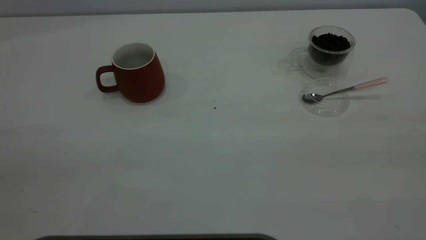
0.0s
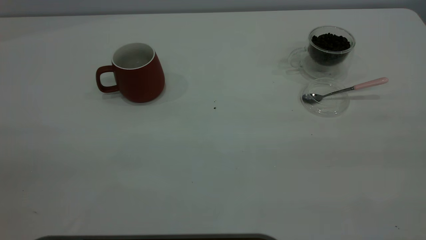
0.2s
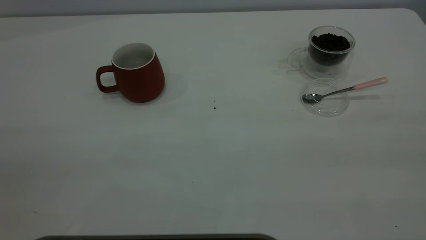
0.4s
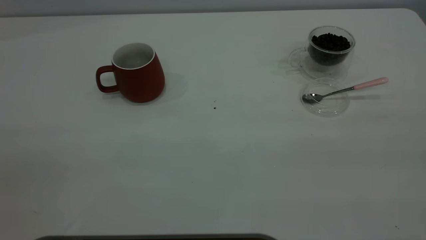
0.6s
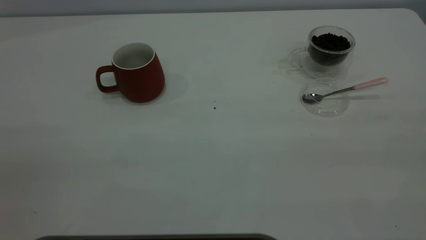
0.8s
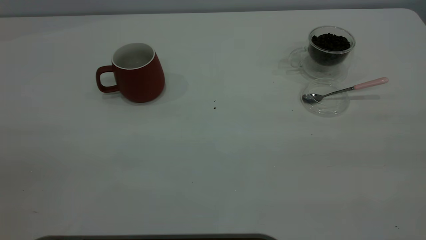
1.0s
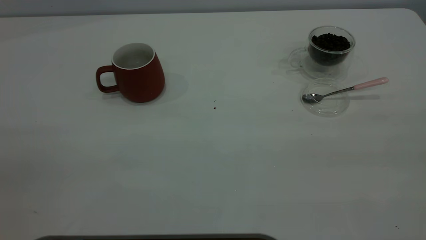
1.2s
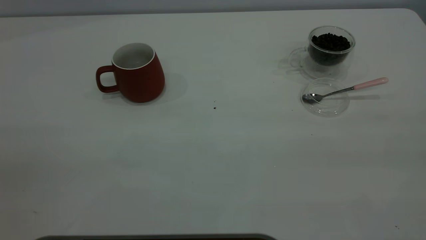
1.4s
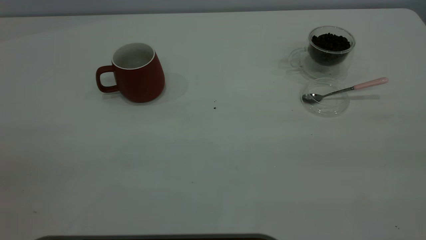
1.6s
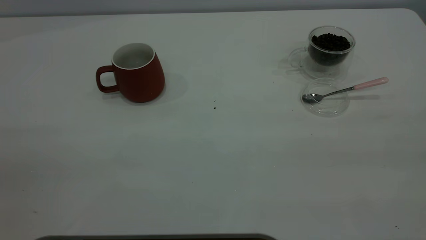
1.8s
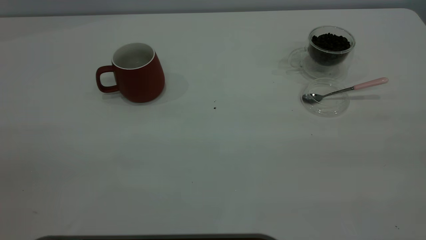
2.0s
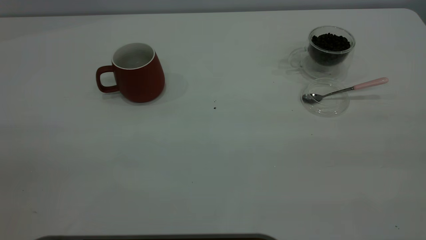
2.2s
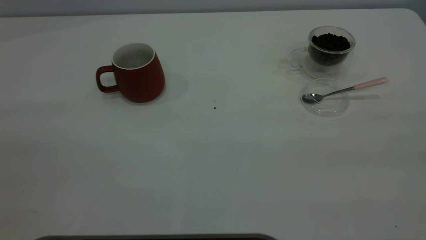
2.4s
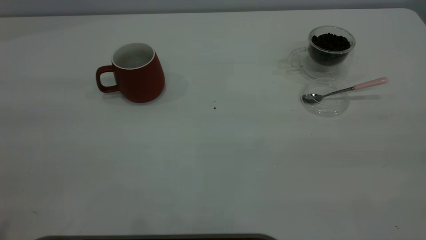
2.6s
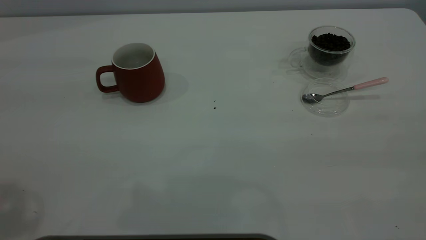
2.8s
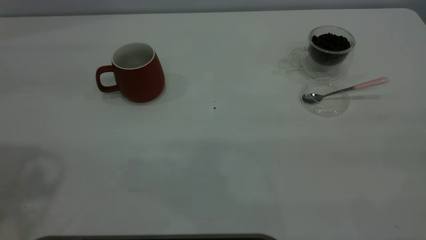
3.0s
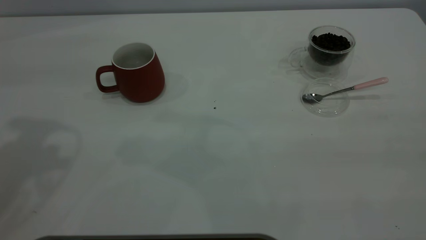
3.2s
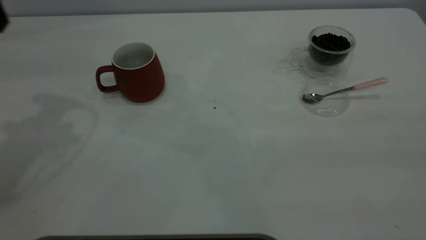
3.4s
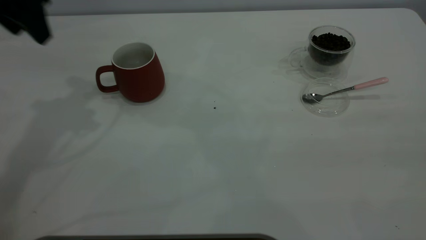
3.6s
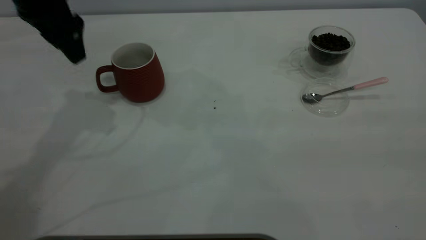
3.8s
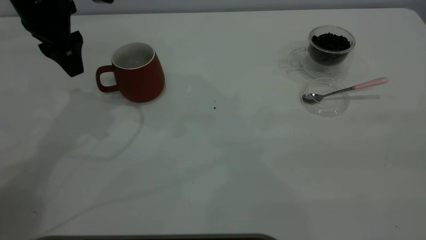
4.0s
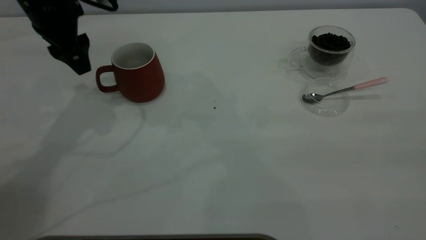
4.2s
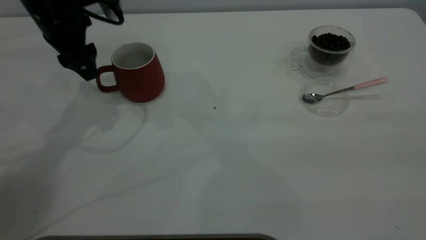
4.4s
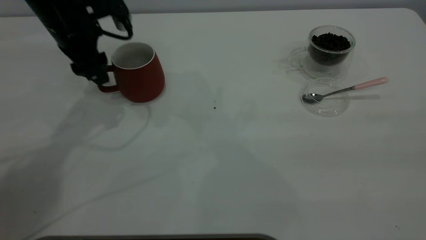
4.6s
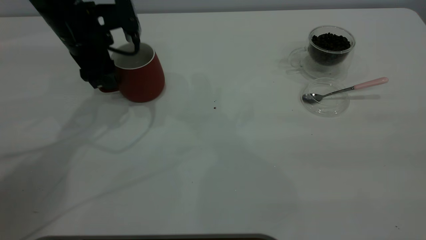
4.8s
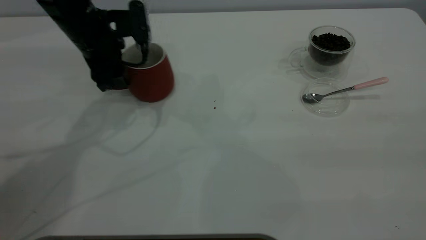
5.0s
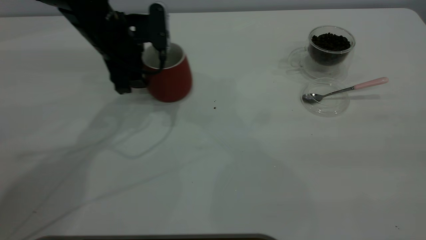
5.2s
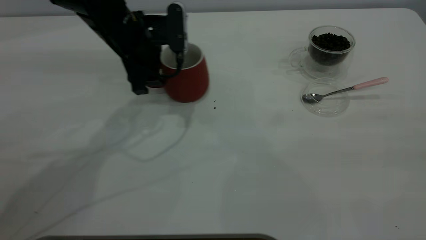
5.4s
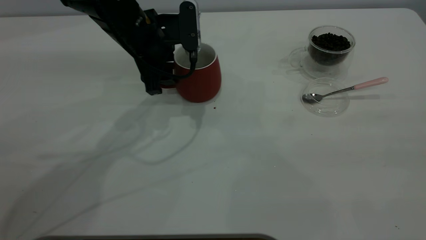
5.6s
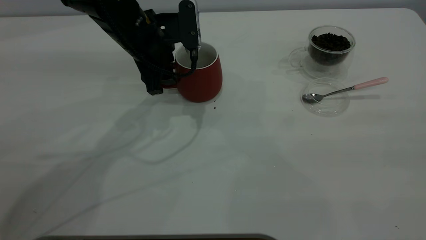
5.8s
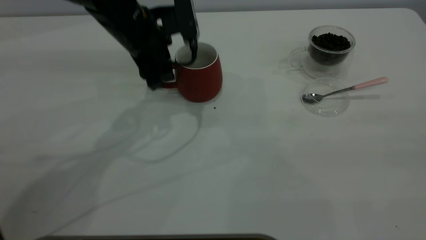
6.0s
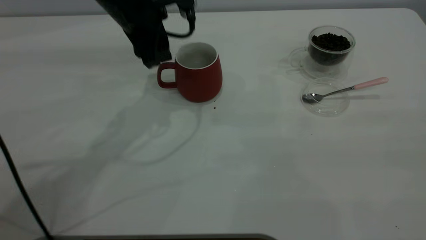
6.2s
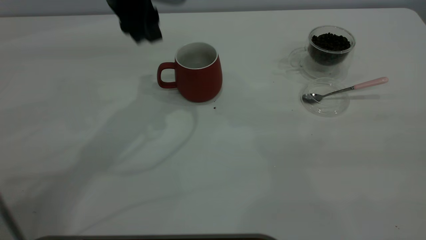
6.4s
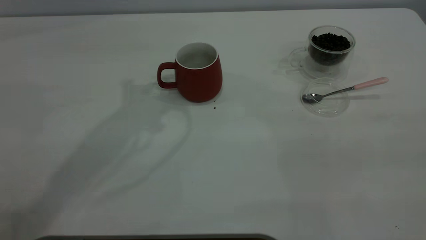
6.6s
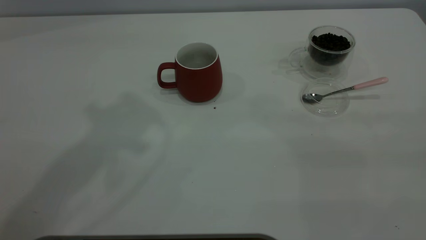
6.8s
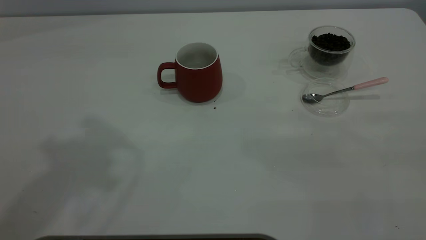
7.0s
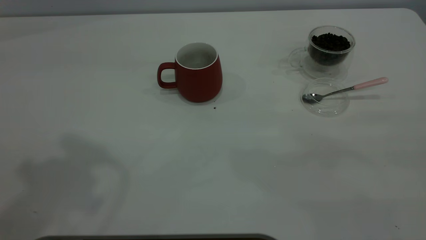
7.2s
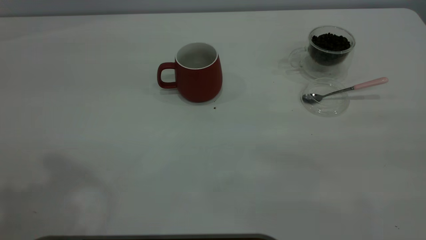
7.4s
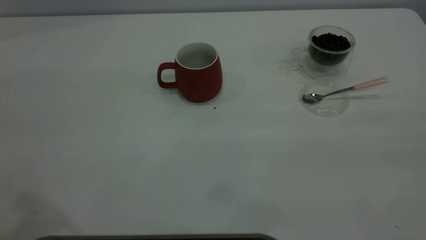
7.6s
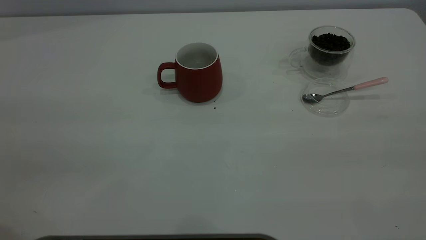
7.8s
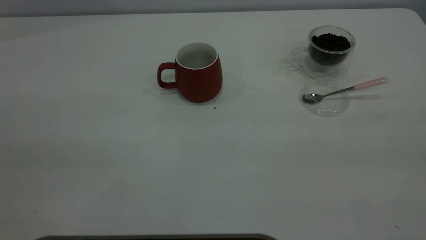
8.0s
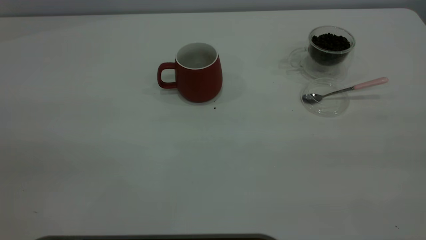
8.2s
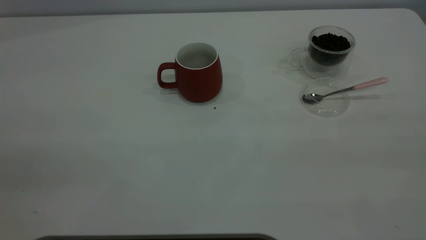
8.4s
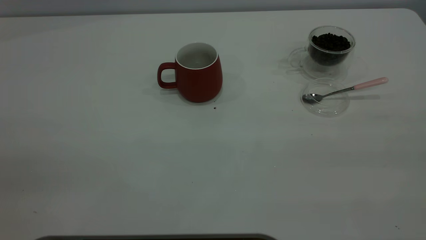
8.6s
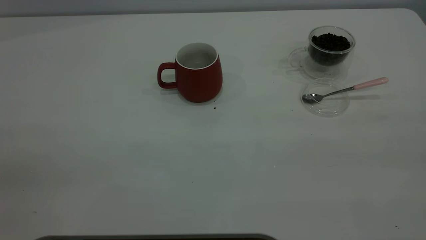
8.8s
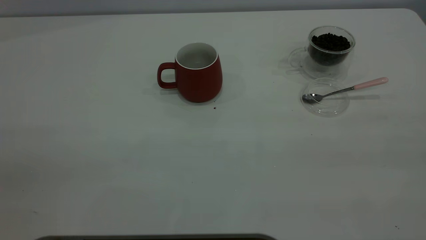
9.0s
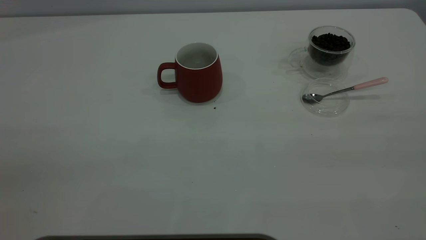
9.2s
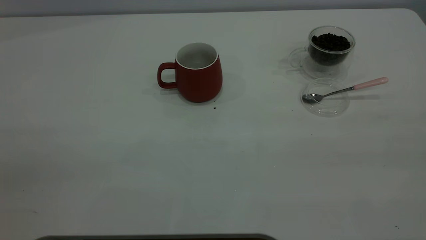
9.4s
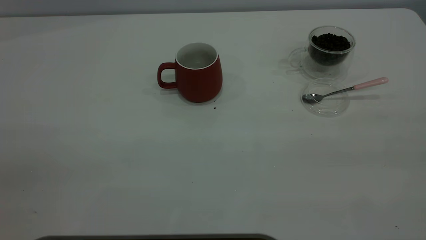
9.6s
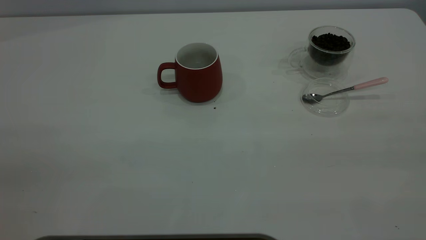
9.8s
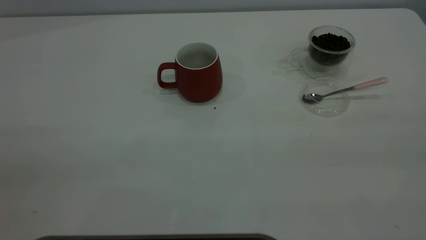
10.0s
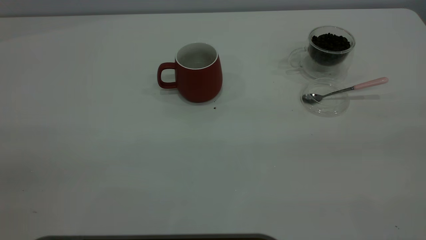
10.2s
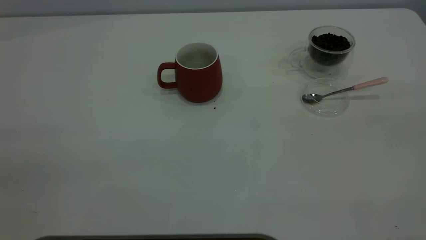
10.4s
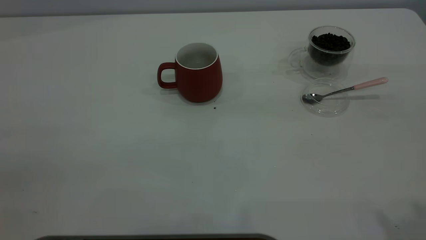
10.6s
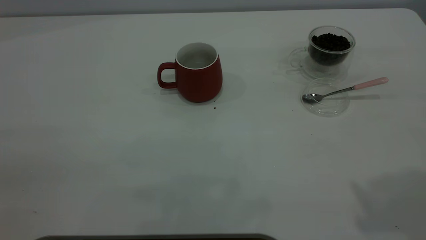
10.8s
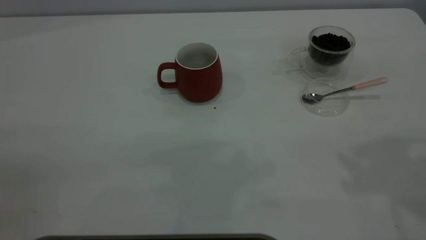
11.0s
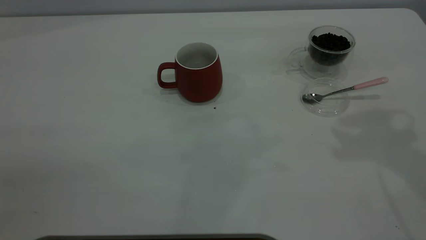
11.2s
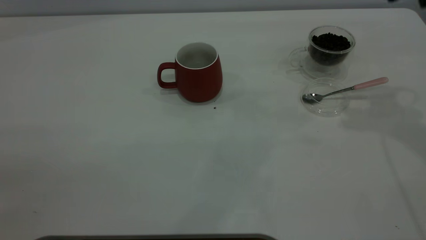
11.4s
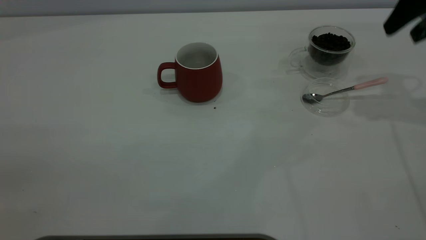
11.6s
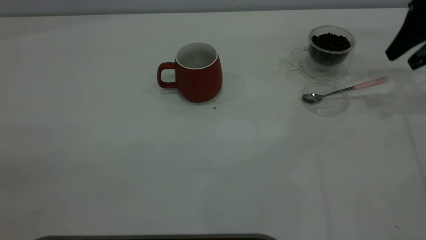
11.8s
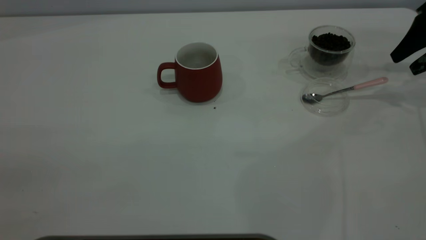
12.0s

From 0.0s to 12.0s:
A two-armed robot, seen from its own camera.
Task of the whole recording: the left gripper place the red cup in the center of the table, the right gripper take the pink spoon from the cup lid and scoop out the coffee beans from the coffee cup and put them into the red cup, the right gripper put the spoon back into the cup lid.
Step, from 0.0s to 6.2s: Move the cup to the center of view.
From 0.0s to 1.6s: Both grippers stay put.
From 3.0s to 4.4s: The left gripper shifts some 25 cm downward and forward.
From 4.4s to 6.0s: The left gripper is displaced to the right by roughly 10 cm.
From 6.0s to 7.6s: The left gripper moves backward, upward and to the left, roughly 35 cm.
From 10.4s to 12.0s: The right gripper is displaced forward and downward by roughly 40 cm.

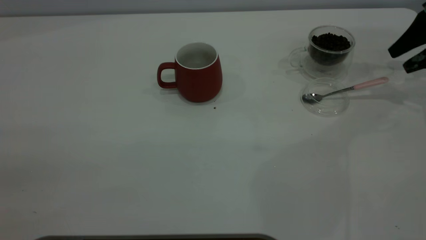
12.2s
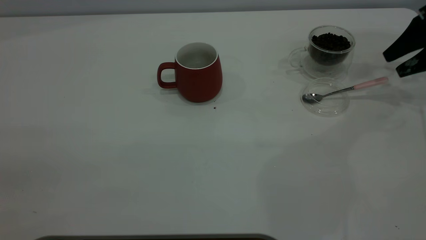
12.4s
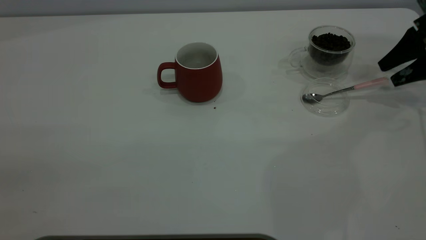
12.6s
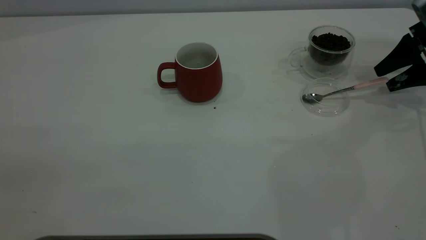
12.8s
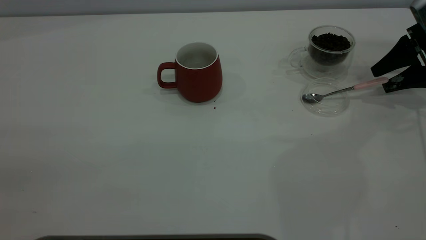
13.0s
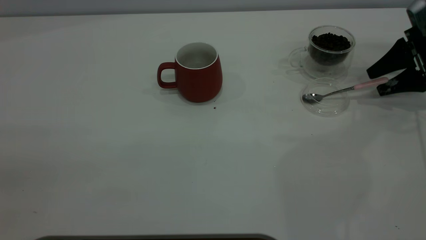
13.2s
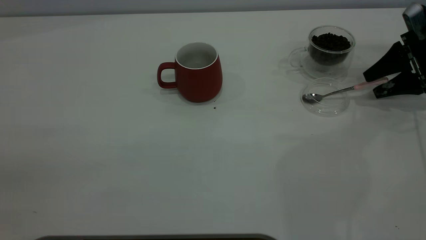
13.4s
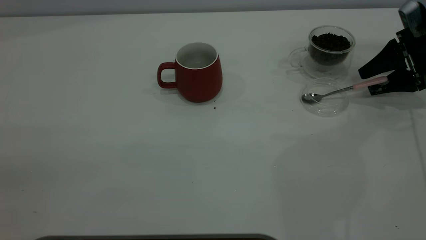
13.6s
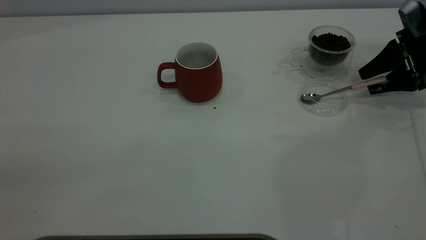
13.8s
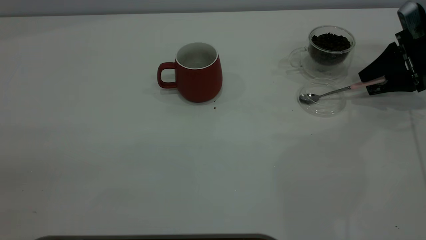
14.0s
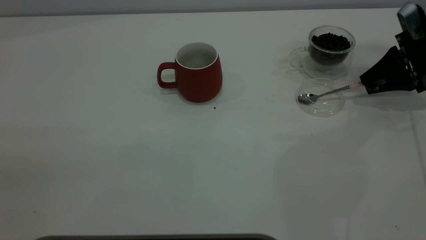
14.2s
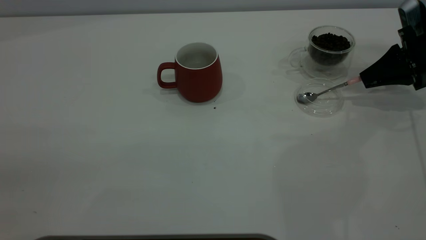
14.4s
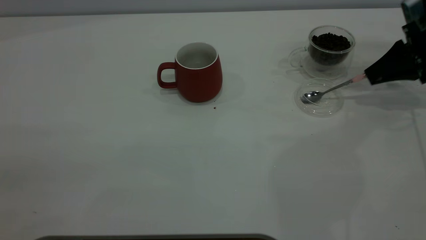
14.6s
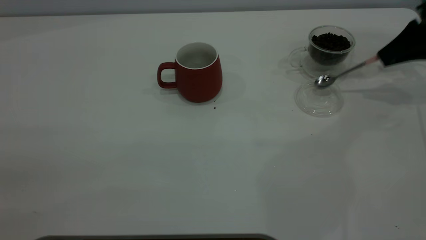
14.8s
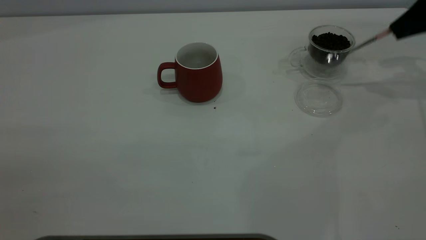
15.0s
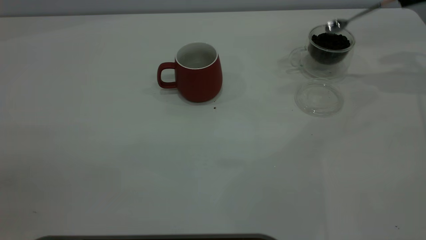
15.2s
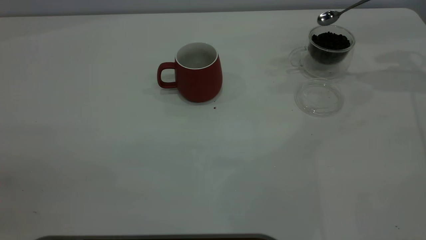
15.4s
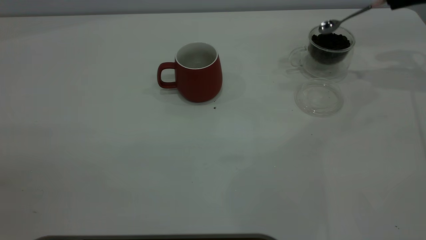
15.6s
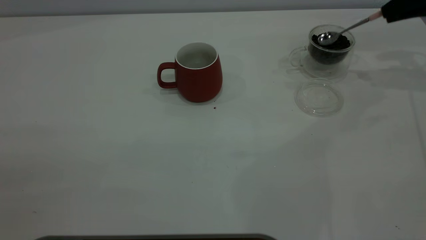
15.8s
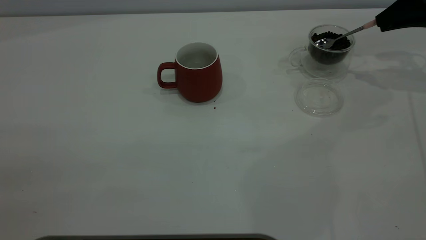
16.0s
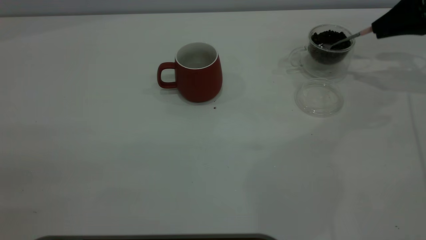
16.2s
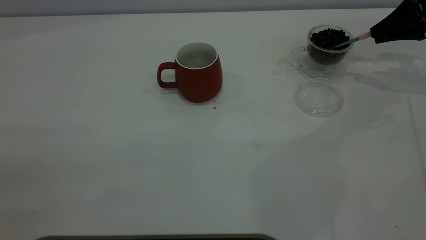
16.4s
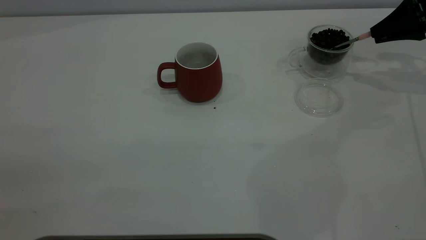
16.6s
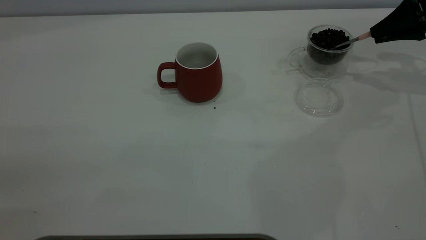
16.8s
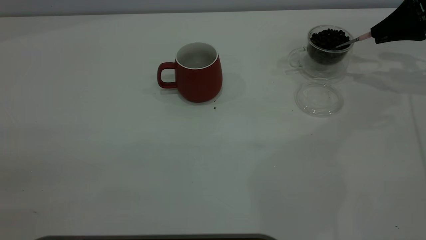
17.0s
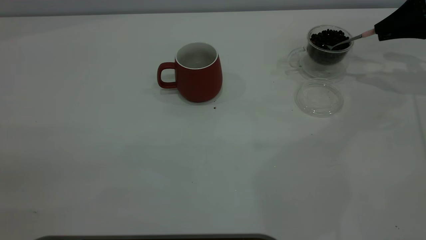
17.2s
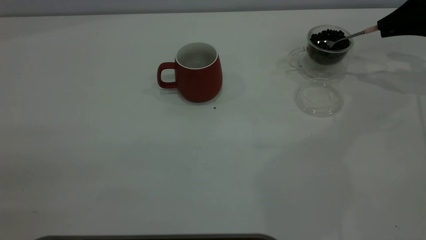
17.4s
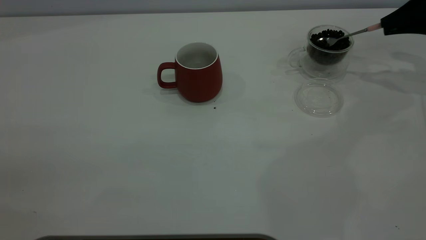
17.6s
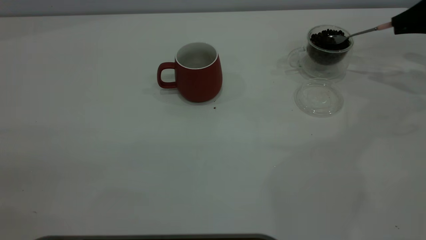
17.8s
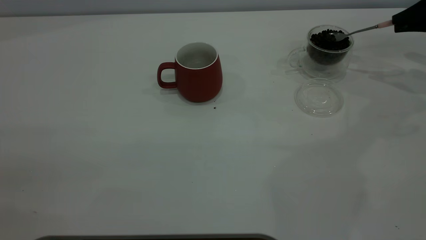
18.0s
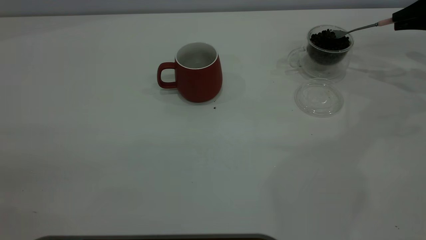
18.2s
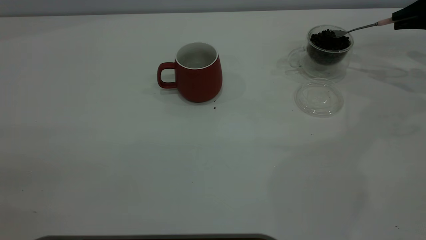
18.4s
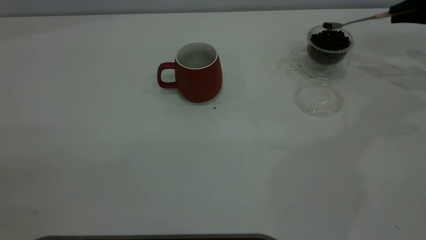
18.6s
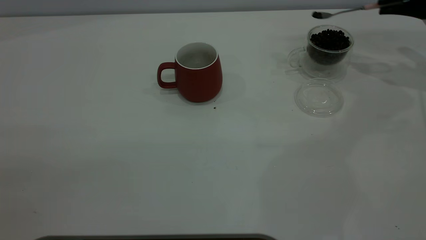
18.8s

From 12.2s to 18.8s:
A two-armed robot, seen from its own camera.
Task of the whole recording: the left gripper place the red cup in the center of the table, the right gripper take the pink spoon from the cup lid and scoop out the coffee beans from the coffee cup and put them into the red cup, the right gripper put the spoon back into the cup lid.
Step, from 12.2s to 14.6s: Pick up the spoon.
From 12.2s to 13.8s: The right gripper travels downward by some 5 cm.
From 13.8s to 15.4s: The right gripper moves upward, some 15 cm, and closes its fingers.
From 15.4s to 17.2s: The right gripper travels downward by some 10 cm.
